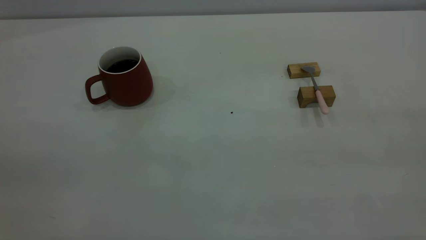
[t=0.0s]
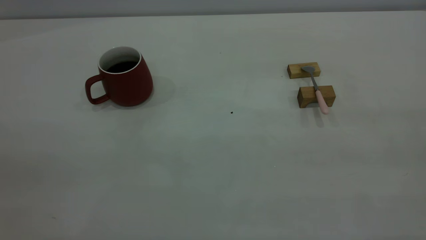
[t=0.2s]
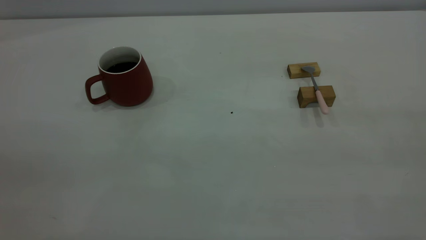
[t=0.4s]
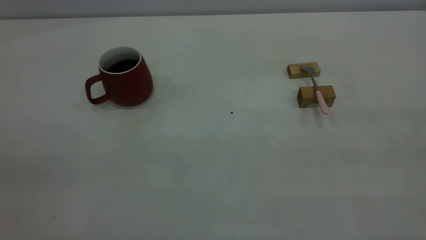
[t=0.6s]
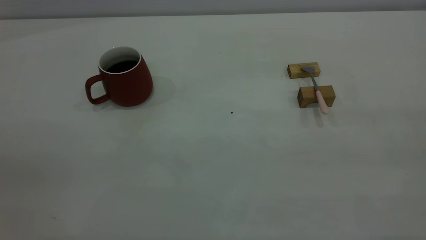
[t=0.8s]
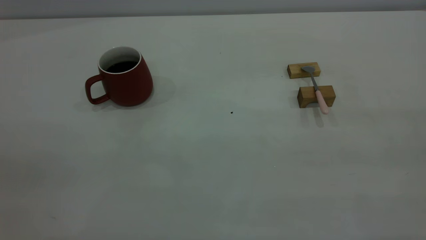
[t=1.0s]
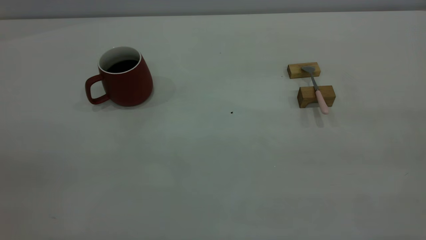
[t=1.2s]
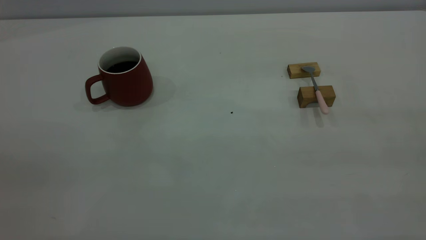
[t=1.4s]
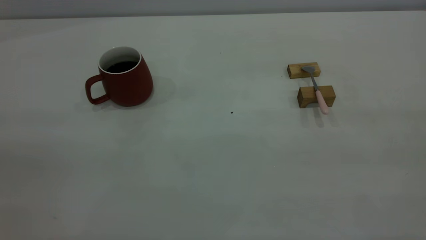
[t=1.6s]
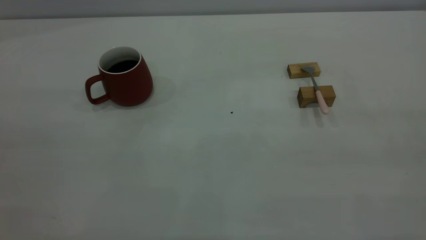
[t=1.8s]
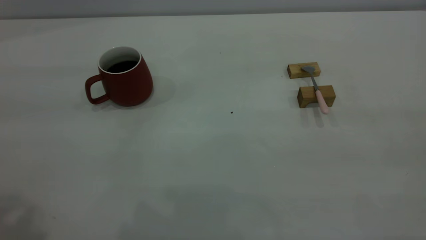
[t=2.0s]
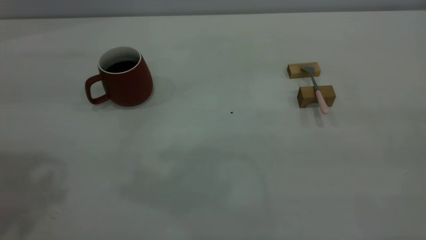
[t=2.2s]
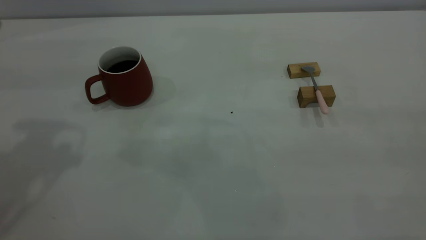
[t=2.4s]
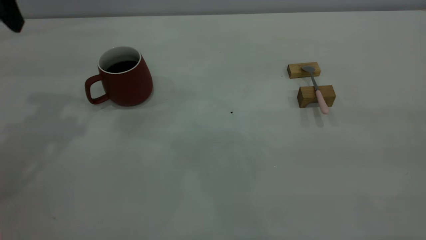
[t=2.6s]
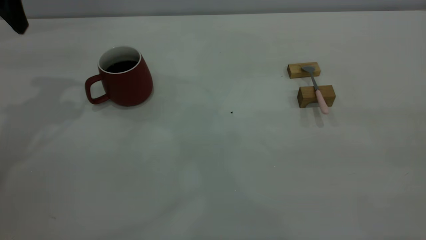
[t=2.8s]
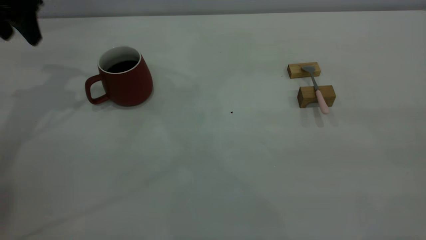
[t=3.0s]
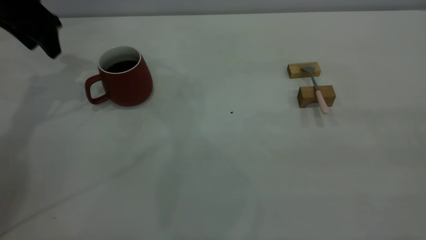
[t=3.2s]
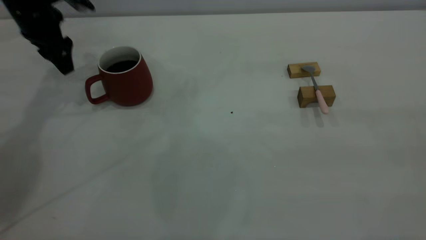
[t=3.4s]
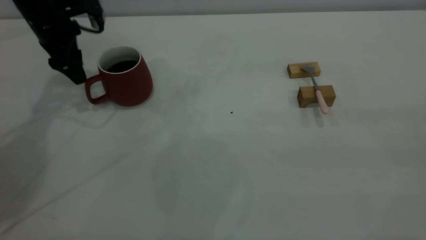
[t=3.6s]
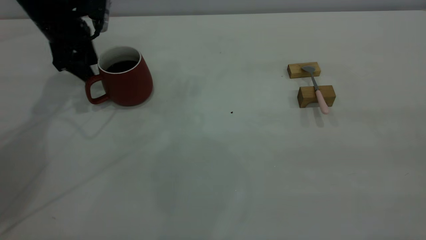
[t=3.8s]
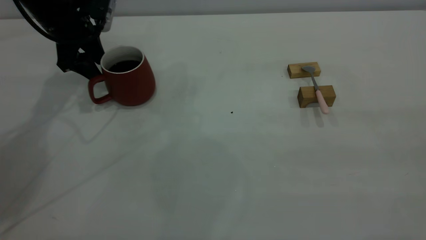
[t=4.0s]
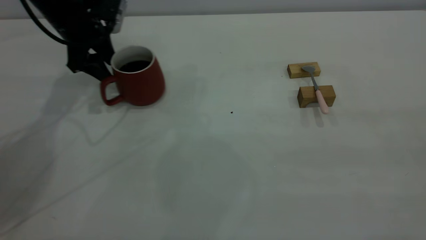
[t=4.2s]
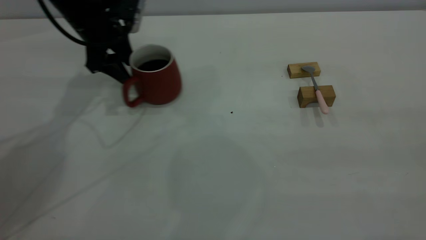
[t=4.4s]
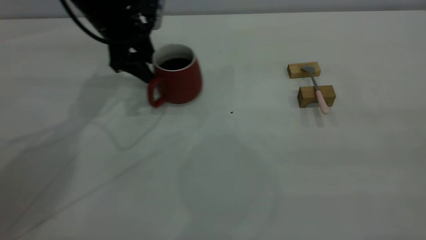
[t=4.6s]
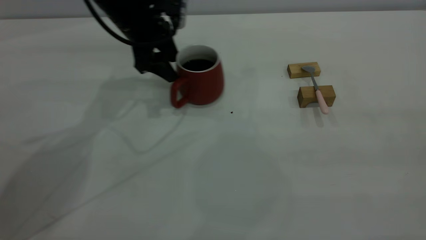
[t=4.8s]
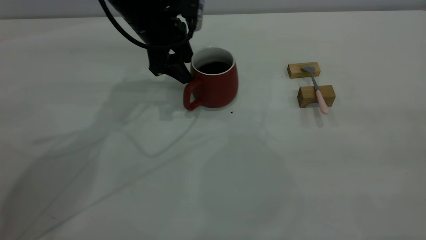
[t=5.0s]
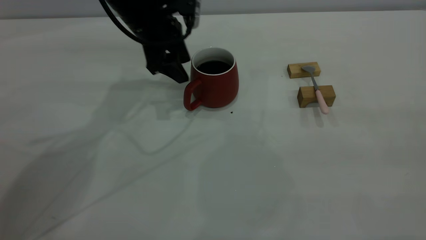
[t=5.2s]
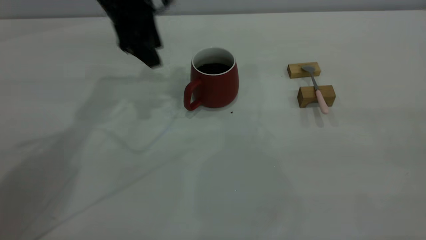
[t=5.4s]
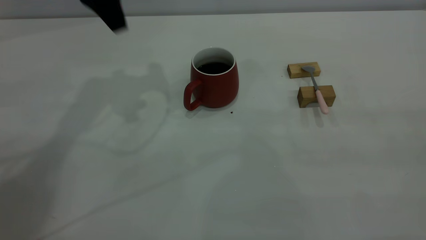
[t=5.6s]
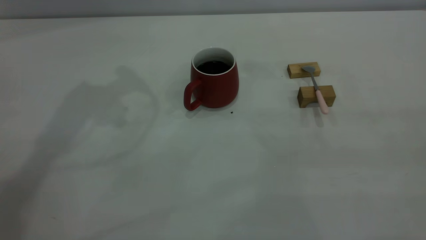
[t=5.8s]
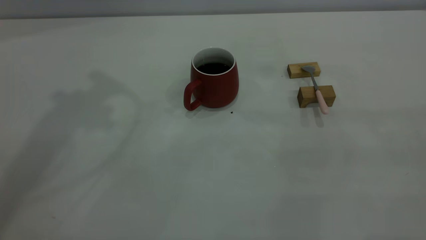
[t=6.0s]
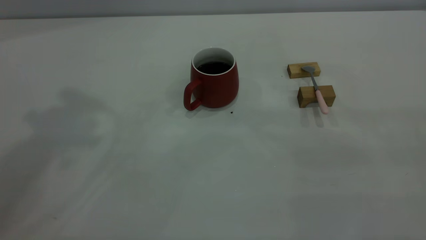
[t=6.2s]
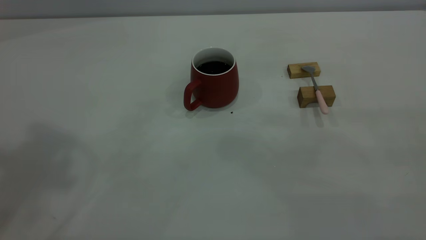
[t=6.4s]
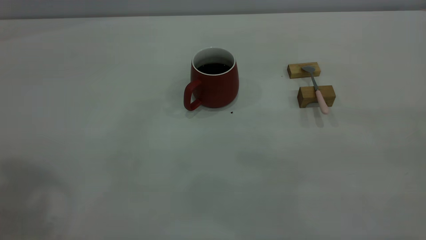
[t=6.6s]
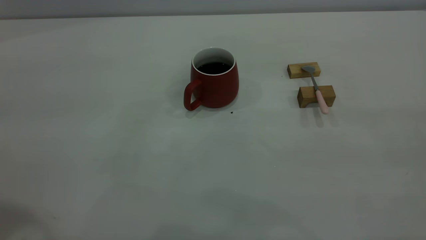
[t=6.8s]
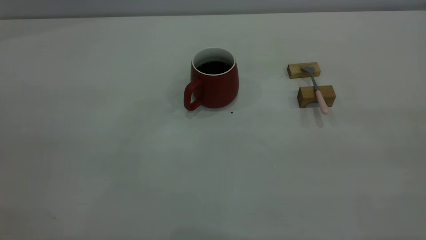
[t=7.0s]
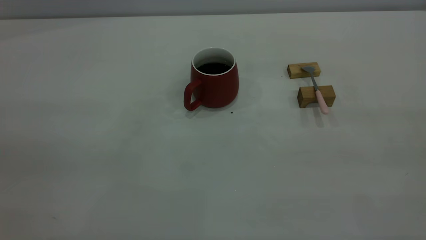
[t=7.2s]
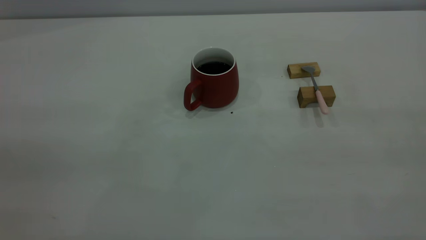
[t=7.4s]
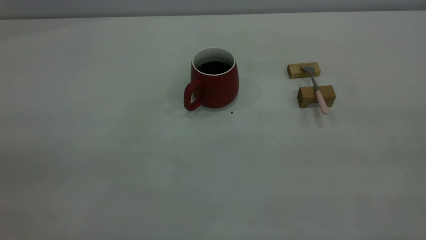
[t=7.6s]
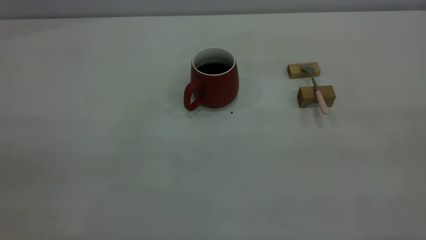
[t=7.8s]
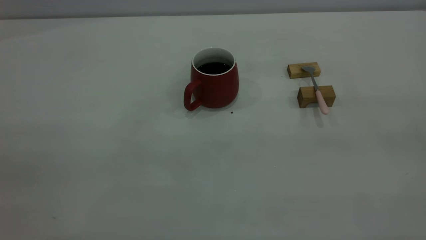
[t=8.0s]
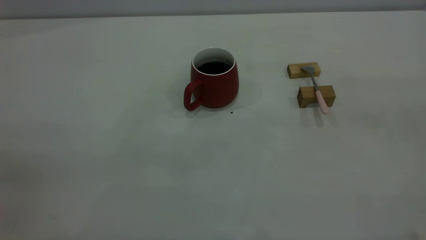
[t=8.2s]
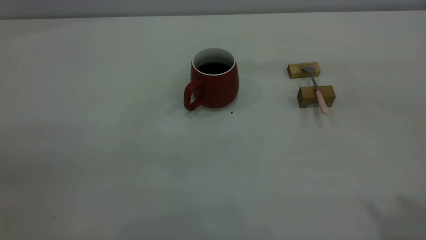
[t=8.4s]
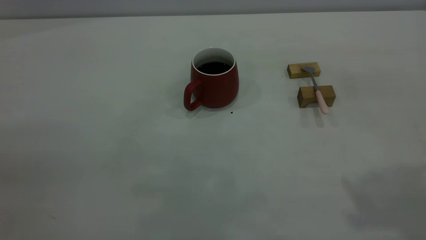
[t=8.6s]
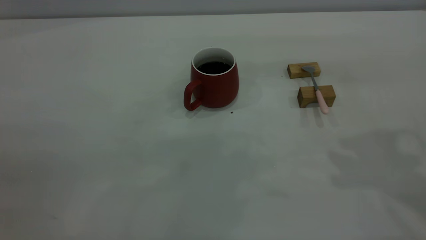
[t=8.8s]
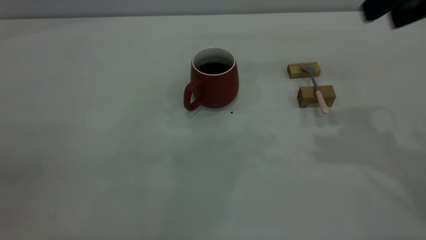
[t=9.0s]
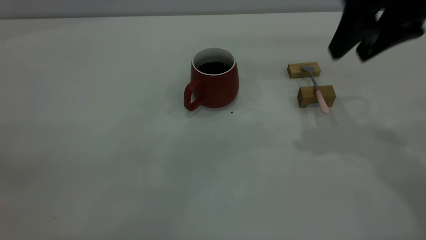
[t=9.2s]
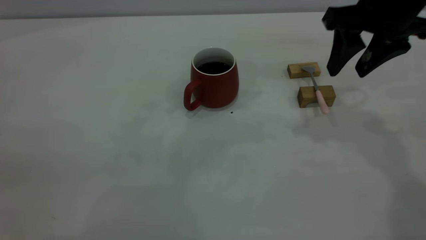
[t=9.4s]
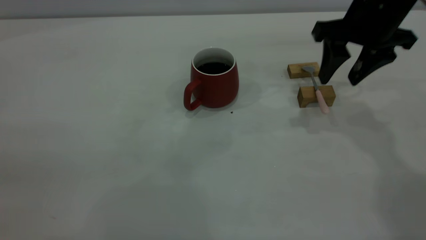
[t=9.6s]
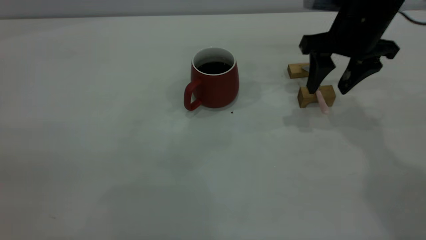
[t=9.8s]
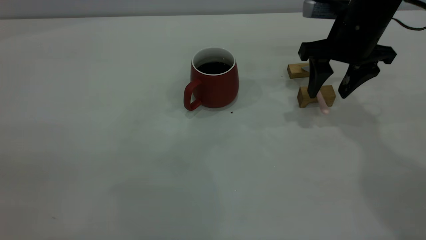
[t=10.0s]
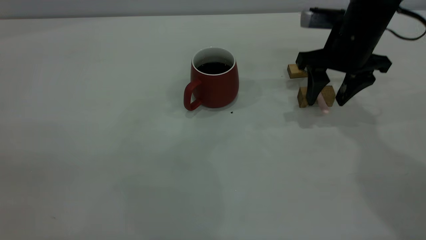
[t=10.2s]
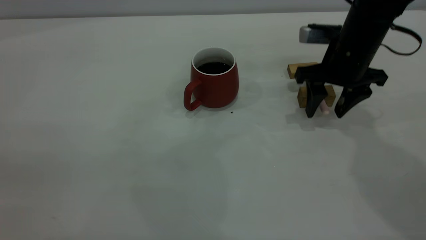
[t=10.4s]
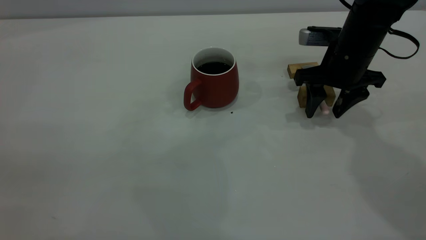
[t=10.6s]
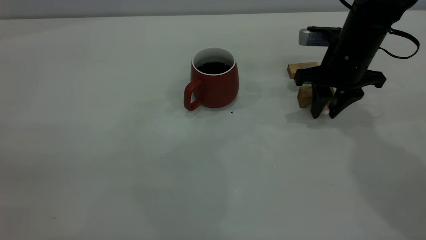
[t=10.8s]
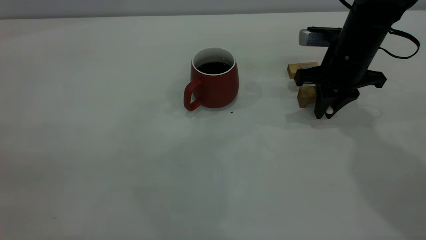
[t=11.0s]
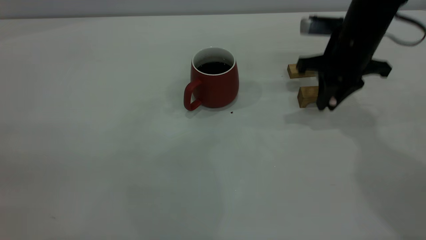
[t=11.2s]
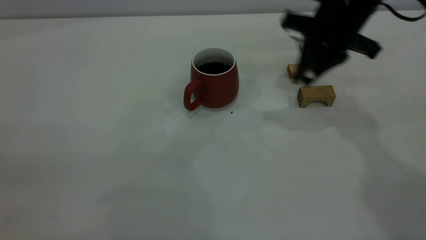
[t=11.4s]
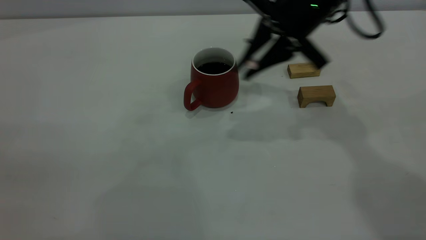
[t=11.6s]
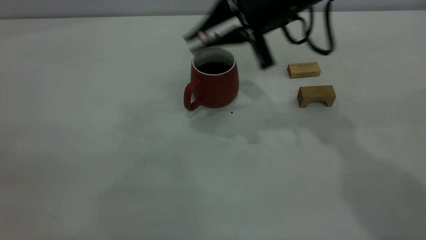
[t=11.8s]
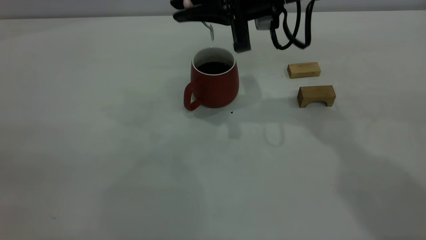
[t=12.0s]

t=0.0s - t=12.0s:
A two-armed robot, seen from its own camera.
Step, t=0.0s - t=5.2s: Move the cup with coffee to the center of view.
Step, t=5.6s - t=11.0s: Pick up the spoon.
t=1.6s - t=3.0s: The left gripper shifts about 40 cm forward.
t=3.0s - t=4.4s: The left gripper is displaced to the right and downward by approximately 15 cm.
t=4.4s - t=6.0s: The left gripper moves upward, about 30 cm.
t=7.6s - t=9.0s: The right gripper heads forward, covering some 30 cm, and opens its fingers.
t=9.0s - t=10.4s: The right gripper heads downward and forward, covering approximately 20 cm.
t=10.4s - t=12.0s: The right gripper goes roughly 15 cm to the left and upward, and closes up.

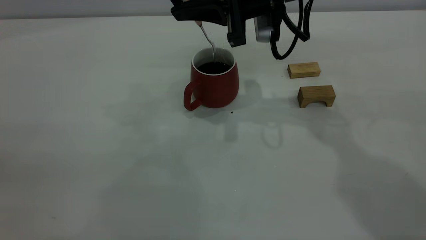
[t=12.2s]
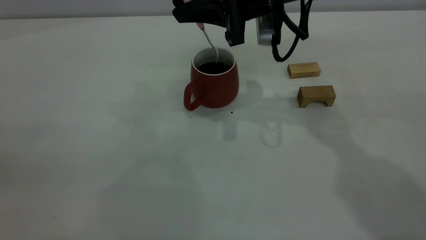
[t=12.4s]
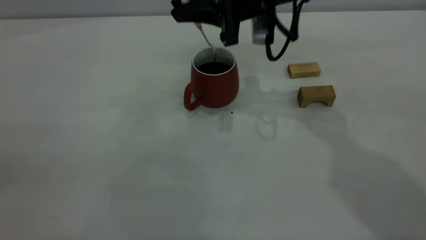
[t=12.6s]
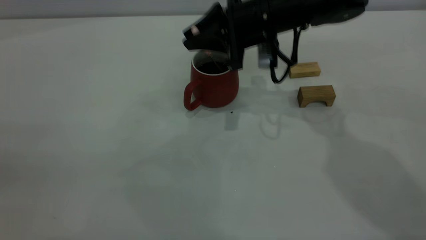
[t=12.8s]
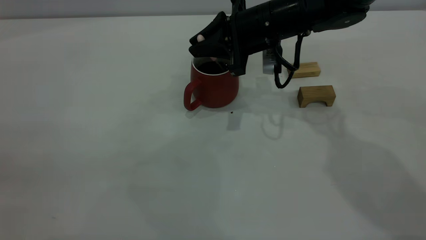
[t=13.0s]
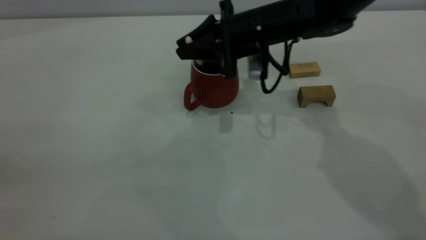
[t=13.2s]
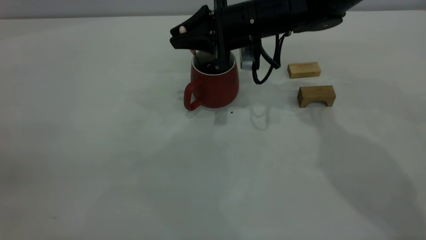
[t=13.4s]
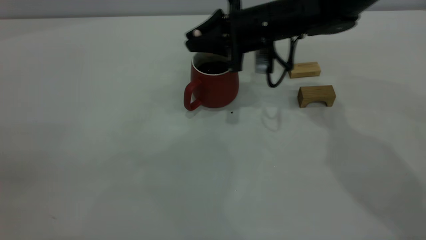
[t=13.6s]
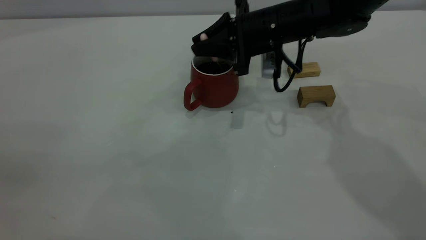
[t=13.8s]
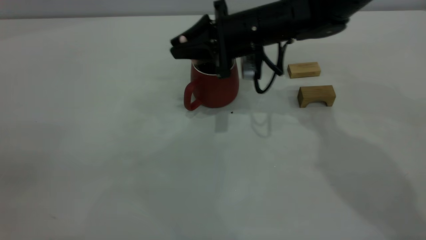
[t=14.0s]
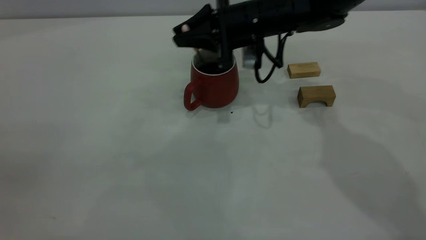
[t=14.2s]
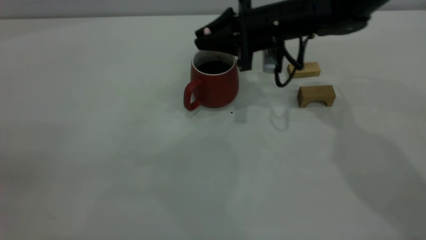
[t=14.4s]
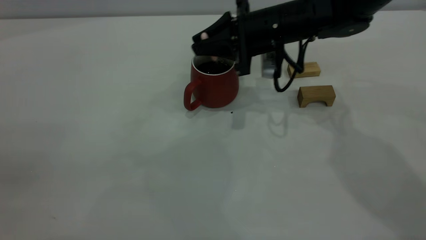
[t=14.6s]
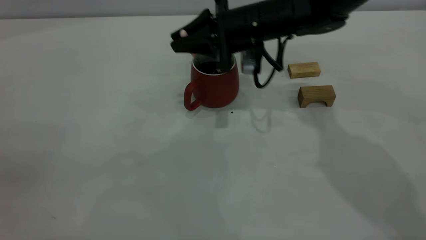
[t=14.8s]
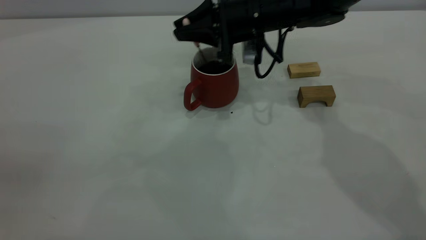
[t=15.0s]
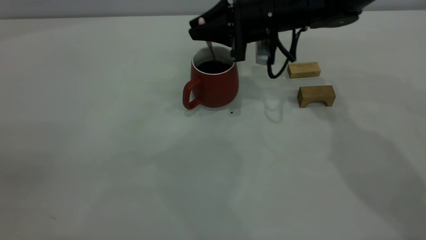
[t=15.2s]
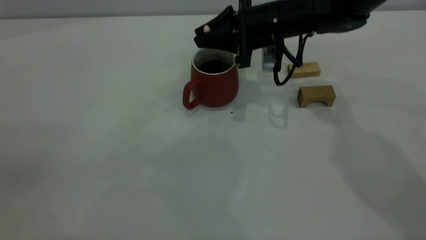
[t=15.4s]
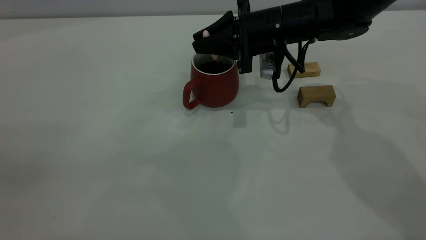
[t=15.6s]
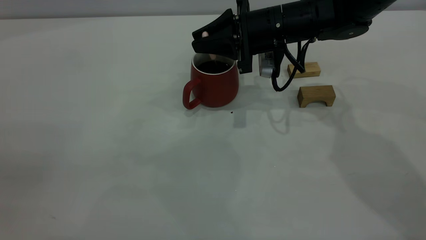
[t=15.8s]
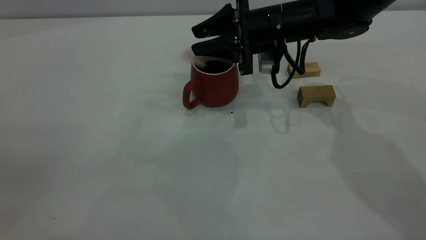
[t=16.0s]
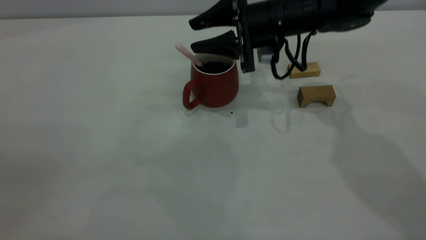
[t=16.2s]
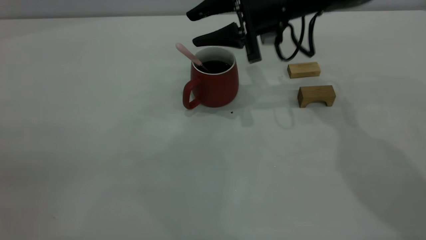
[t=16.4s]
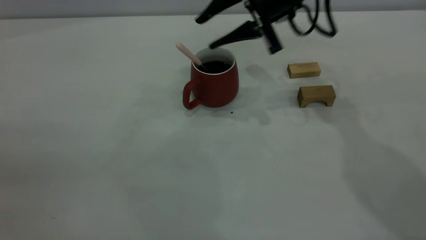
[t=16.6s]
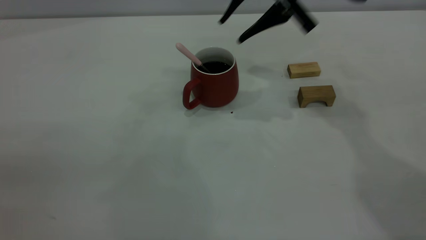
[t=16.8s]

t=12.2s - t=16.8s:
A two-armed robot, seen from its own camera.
Step, t=12.2s - t=16.6s: Stir the coffee in the cup.
t=12.2s - t=13.8s: The right gripper travels downward by approximately 10 cm.
t=13.8s - t=15.2s: The grippers make only small movements.
t=15.2s - t=16.8s: The right gripper heads upward, covering approximately 15 cm, and opens its fingers.
